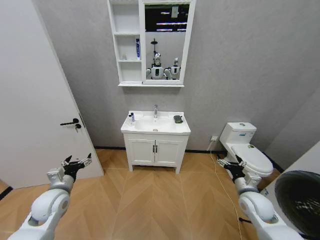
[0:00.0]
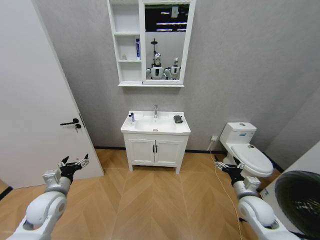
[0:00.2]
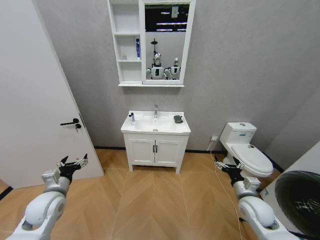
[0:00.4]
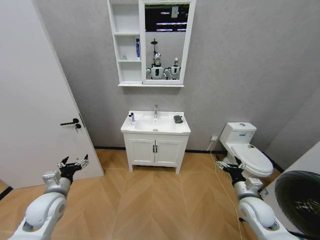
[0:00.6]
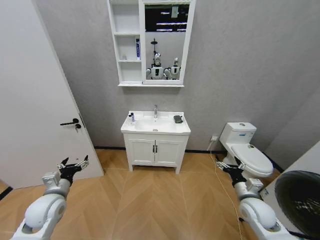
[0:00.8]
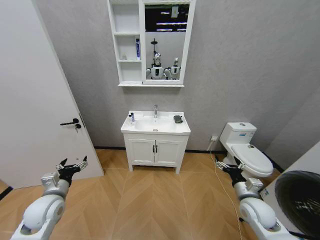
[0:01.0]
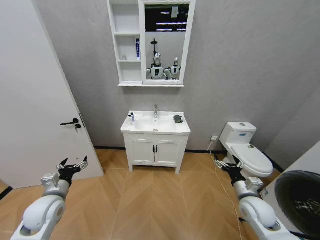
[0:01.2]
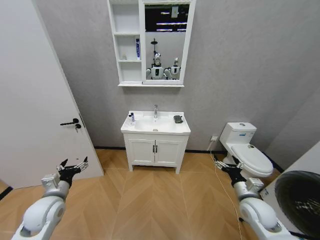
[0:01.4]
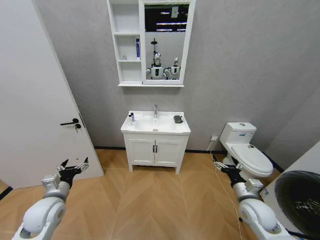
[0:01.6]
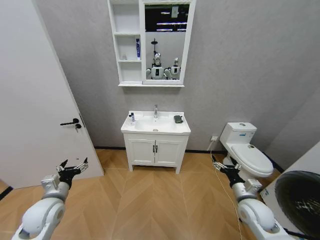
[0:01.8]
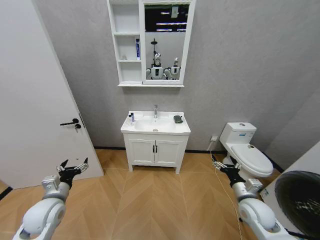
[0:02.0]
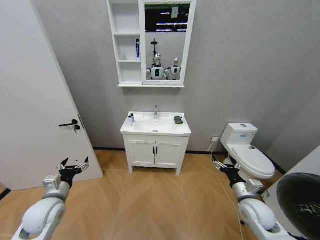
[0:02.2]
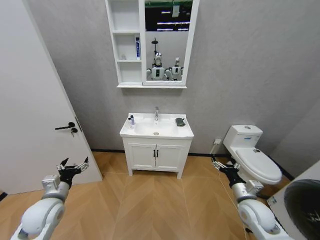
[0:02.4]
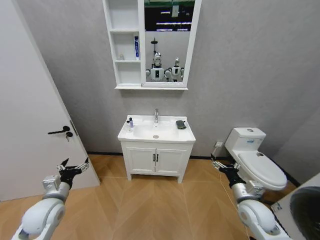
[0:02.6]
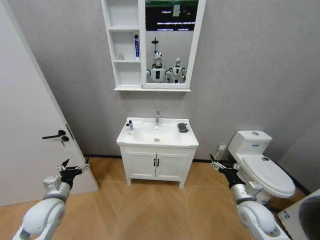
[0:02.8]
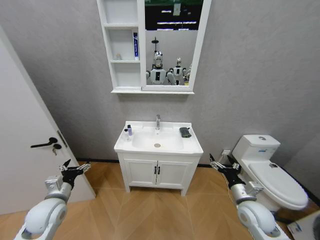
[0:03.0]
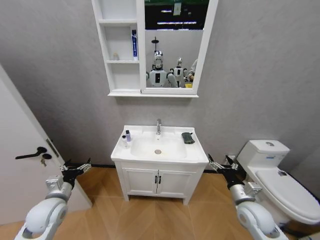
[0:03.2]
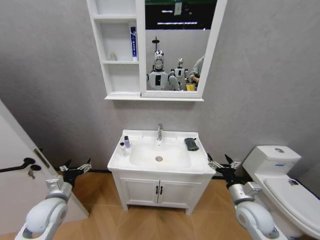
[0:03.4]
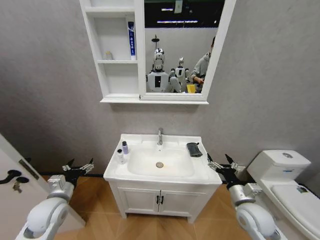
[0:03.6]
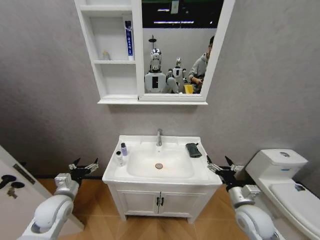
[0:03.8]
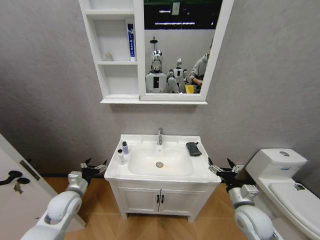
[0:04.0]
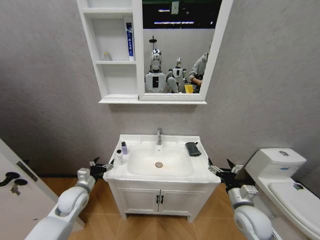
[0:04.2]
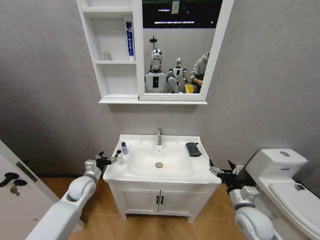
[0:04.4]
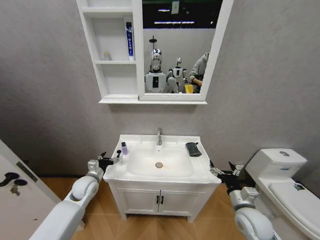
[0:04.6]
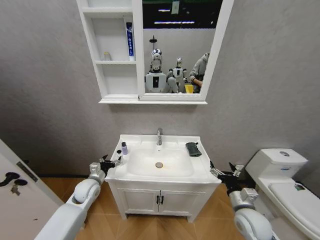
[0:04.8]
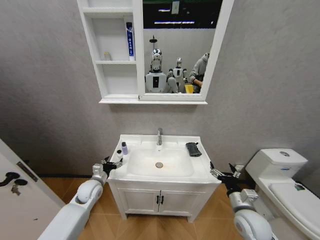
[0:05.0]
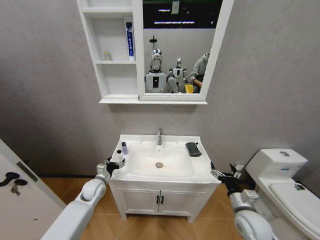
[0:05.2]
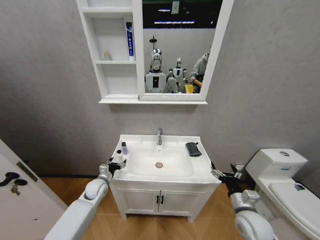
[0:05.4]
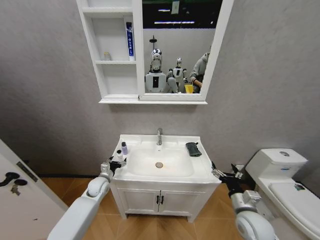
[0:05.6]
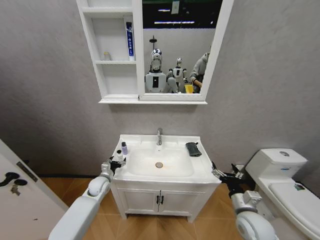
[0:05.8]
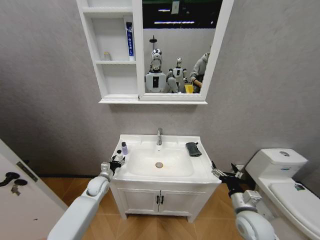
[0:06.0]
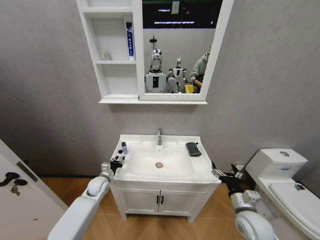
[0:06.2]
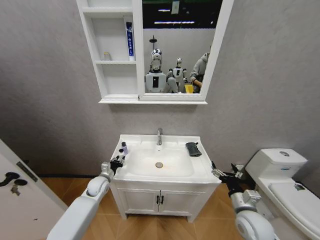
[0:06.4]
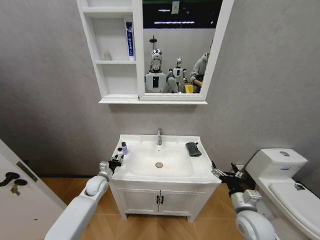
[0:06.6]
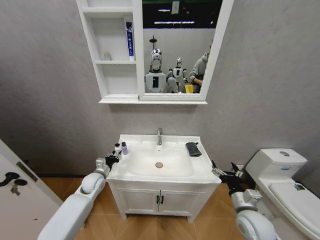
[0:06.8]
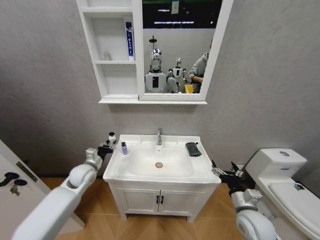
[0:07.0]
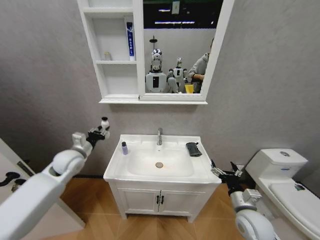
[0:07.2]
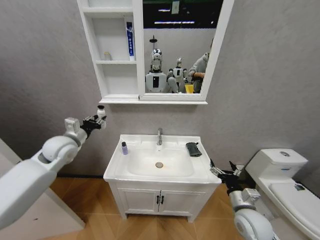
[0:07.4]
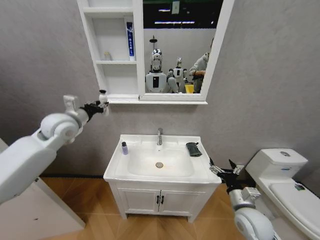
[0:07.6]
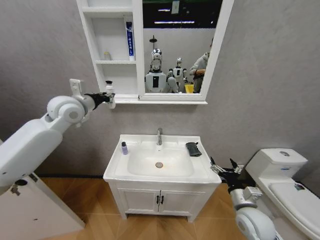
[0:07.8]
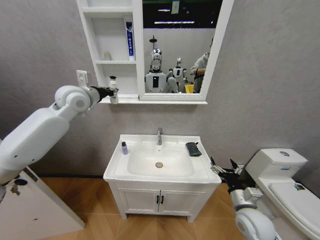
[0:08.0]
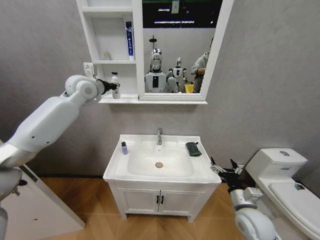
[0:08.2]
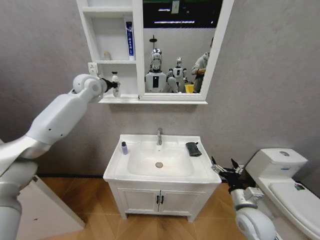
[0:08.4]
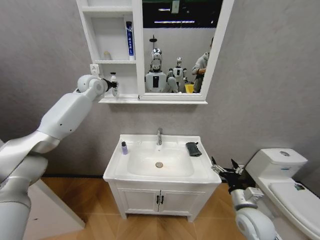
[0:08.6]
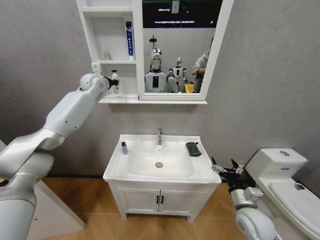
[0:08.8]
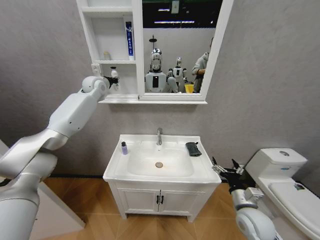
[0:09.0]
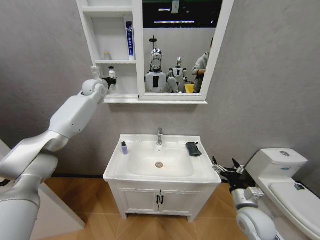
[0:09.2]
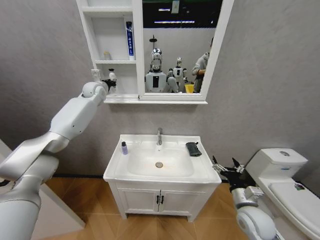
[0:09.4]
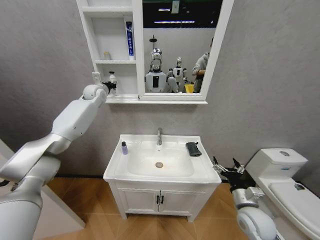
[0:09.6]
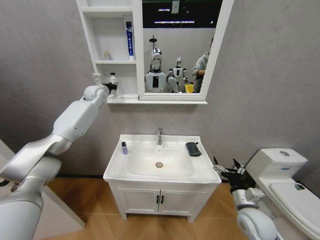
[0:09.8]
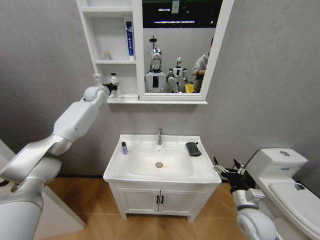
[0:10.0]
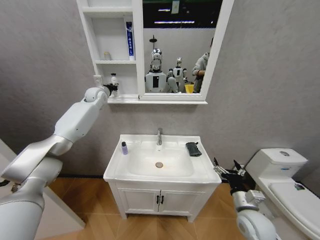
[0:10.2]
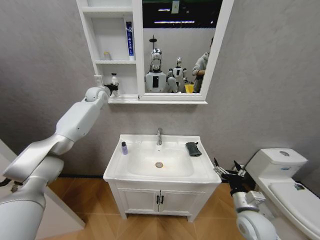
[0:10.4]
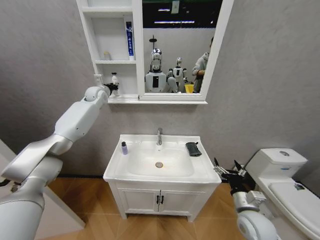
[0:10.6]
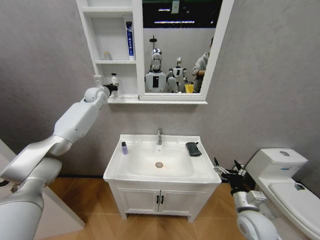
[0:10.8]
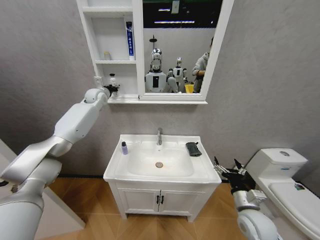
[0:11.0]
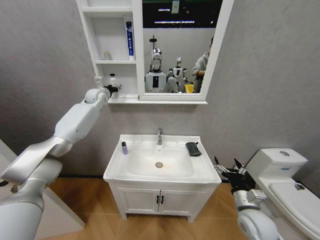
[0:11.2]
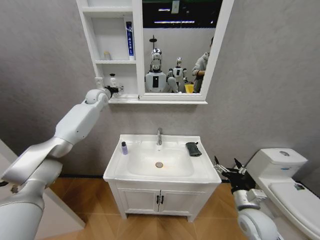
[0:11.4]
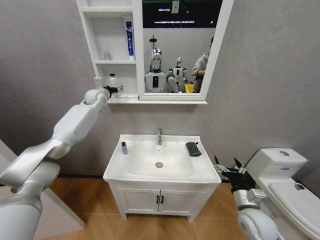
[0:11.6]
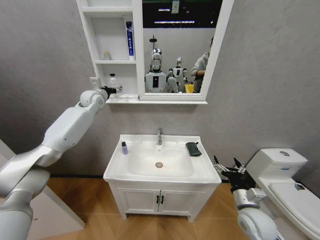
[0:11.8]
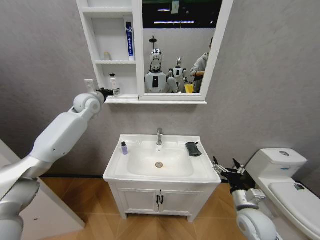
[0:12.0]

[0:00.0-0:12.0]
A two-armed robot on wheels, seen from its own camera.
Task of the whole recording: Move facial cleanser and shampoo from washbasin to cabinet, then wipe washbasin with towel.
0:03.0 to 0:04.4: The left gripper shifts roughly 10 cm forward.
0:04.4 to 0:06.0: The left gripper goes roughly 5 cm downward, and closes.
0:06.0 to 0:07.6: The left gripper moves upward, some 35 cm, and closes.
0:07.6 to 0:09.0: The left gripper goes roughly 25 cm forward and upward.
0:09.0 to 0:10.4: The left gripper heads downward, covering about 5 cm.
0:10.4 to 0:12.0: The left gripper shifts roughly 10 cm backward, and opens.

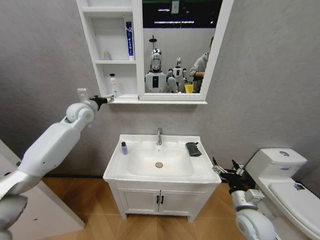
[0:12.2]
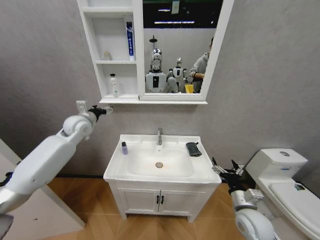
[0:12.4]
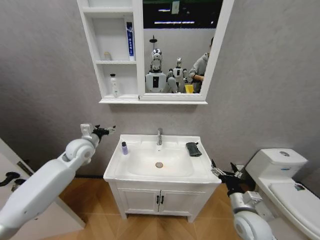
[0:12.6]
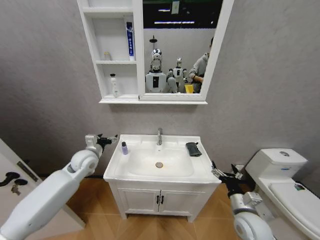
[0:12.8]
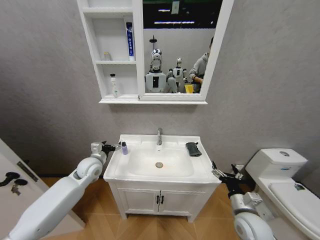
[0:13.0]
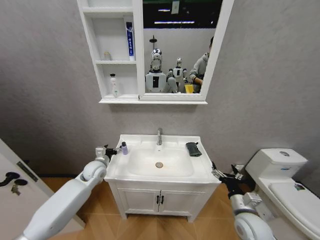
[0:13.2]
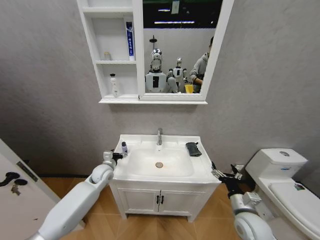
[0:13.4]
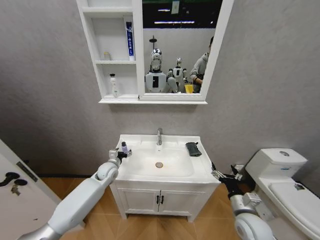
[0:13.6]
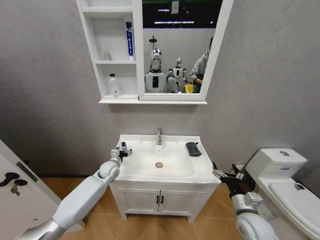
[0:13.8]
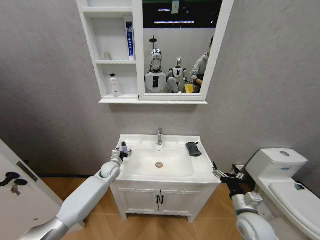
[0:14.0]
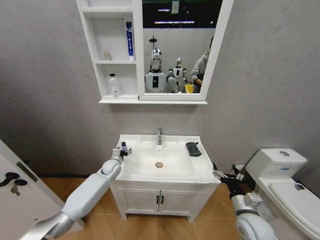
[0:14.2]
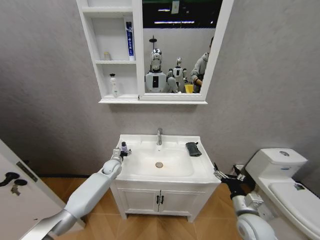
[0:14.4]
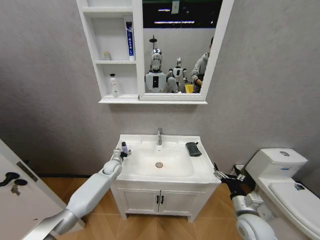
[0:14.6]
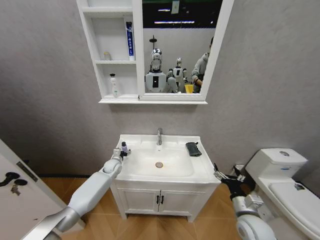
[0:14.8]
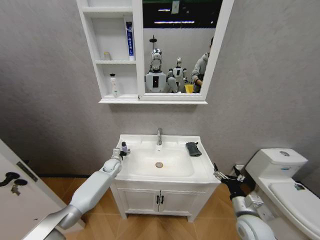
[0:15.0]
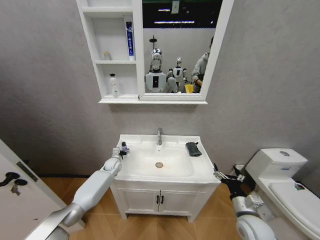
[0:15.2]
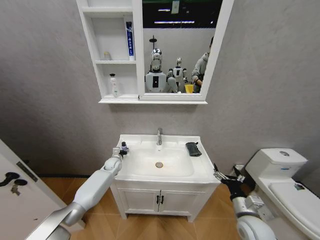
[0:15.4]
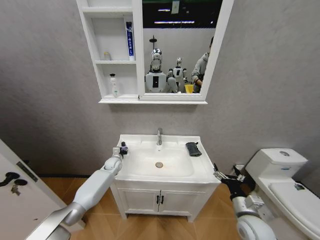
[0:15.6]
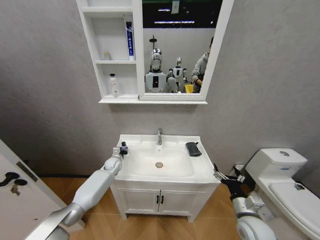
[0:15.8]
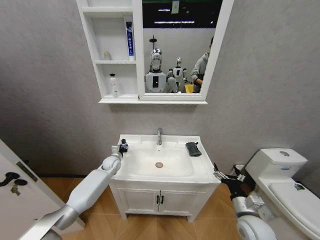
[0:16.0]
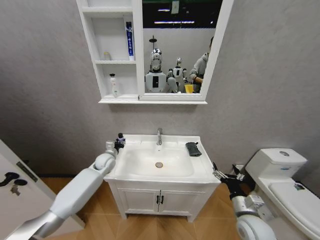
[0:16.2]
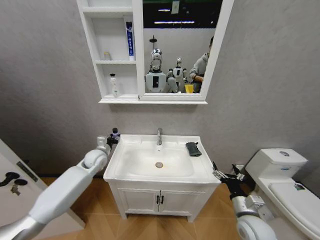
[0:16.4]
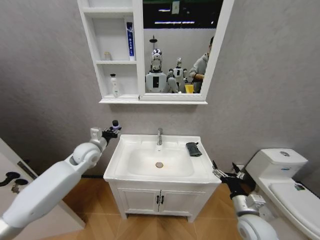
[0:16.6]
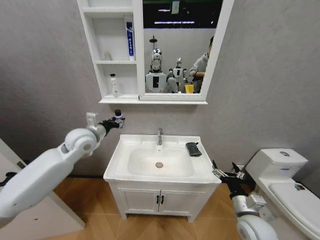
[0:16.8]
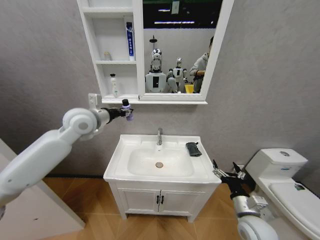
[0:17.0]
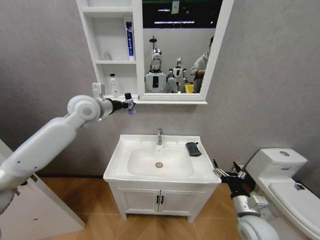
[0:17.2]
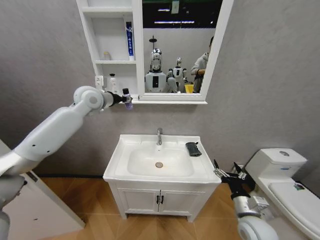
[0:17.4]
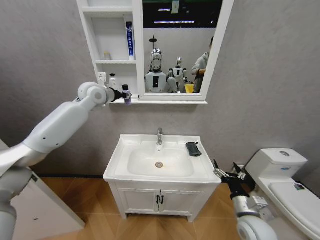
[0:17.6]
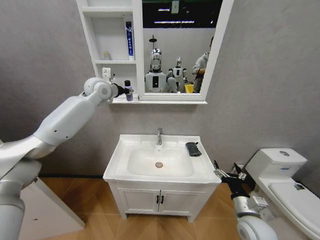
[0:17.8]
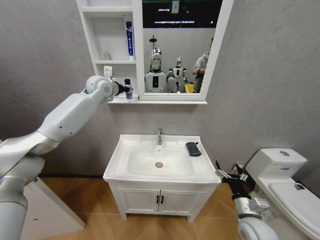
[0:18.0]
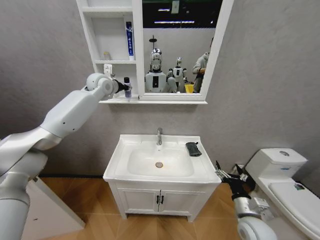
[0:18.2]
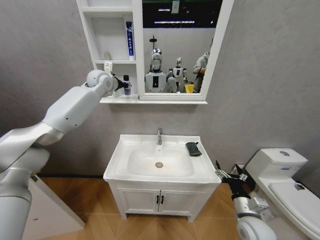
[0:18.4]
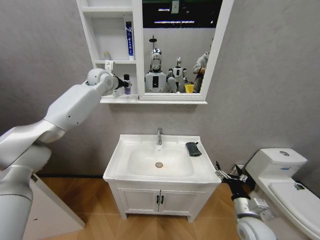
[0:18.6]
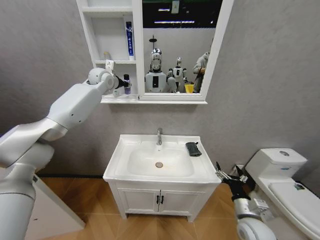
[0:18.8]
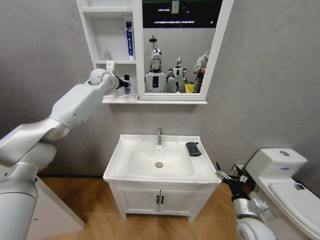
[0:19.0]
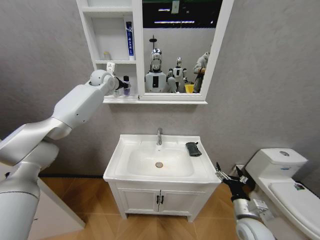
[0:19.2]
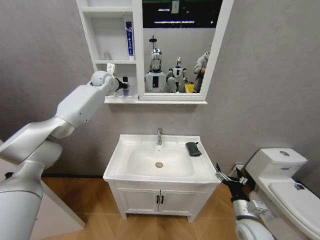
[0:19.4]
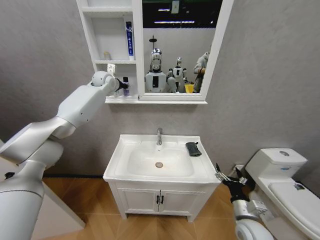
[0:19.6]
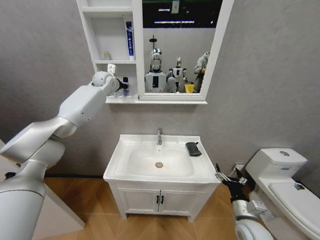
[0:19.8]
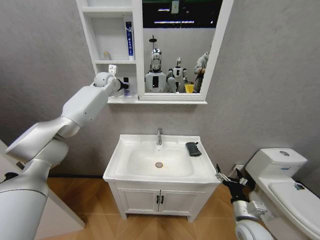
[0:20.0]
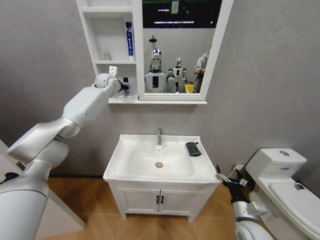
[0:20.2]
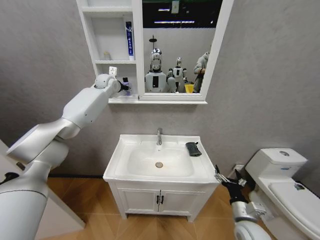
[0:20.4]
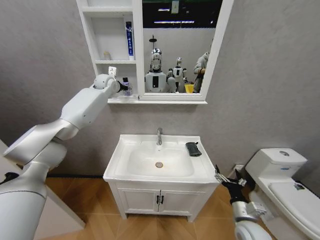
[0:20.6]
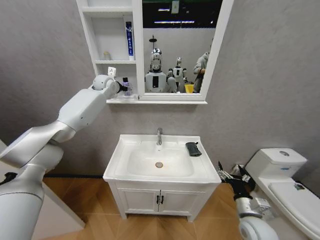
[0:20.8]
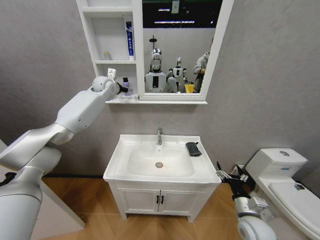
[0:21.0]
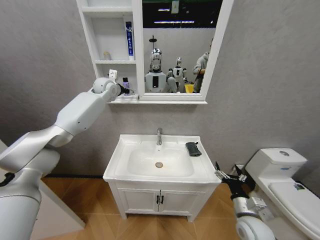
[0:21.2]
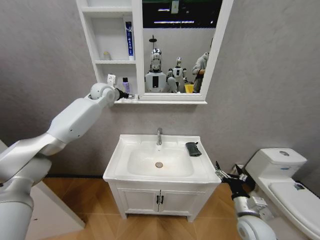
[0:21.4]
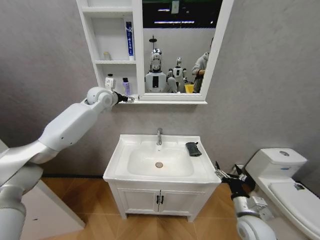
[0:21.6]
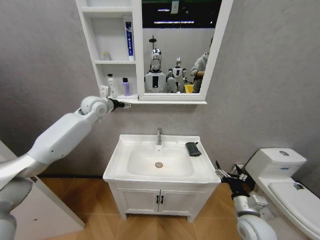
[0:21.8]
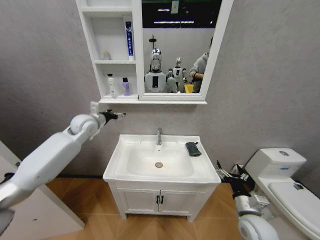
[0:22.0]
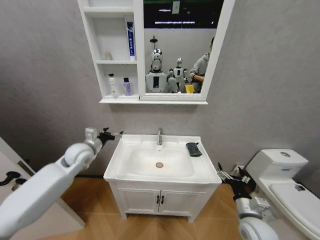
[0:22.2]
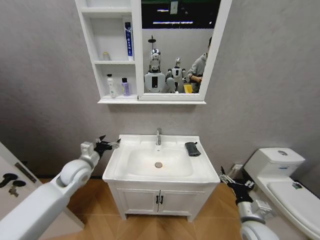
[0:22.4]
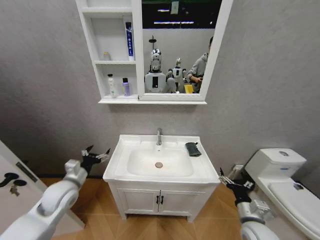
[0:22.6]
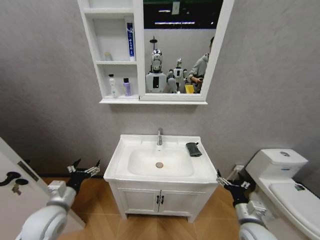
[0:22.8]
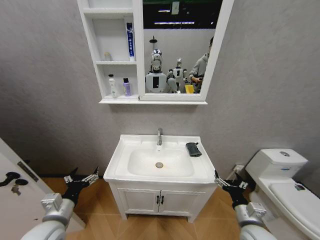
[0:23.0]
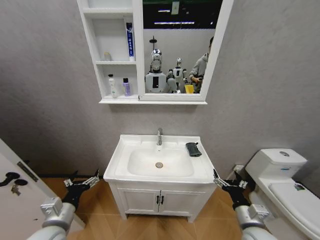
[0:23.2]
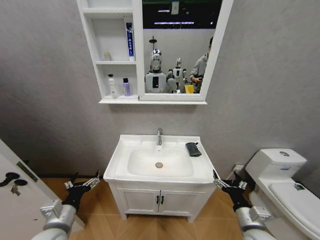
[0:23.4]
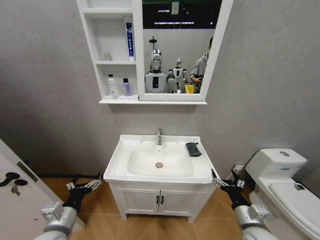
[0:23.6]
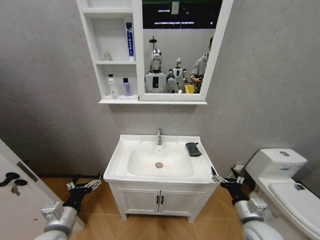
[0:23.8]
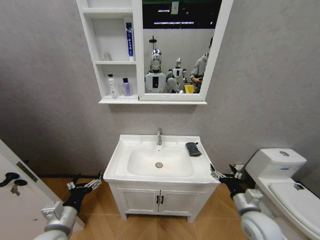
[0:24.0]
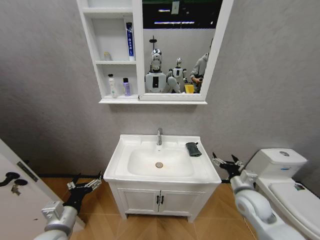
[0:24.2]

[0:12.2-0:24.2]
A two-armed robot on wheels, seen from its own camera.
Task of the whole recording: Move facial cleanser and shampoo from washbasin to cabinet, then wipe washbasin with towel.
0:12.2 to 0:13.8: The left gripper is displaced downward by roughly 30 cm.
0:13.8 to 0:15.2: The left gripper moves forward and downward, about 10 cm.
0:15.2 to 0:16.6: The left gripper heads upward and backward, covering some 25 cm, and closes up.
0:16.6 to 0:18.2: The left gripper travels upward and forward by about 30 cm.
0:18.2 to 0:19.8: The left gripper travels forward by about 5 cm.
0:19.8 to 0:21.2: The left gripper opens up.
0:21.2 to 0:22.6: The left gripper shifts about 40 cm backward and downward.
0:22.6 to 0:24.2: The right gripper goes approximately 10 cm forward and upward. The left gripper shifts roughly 15 cm backward.
